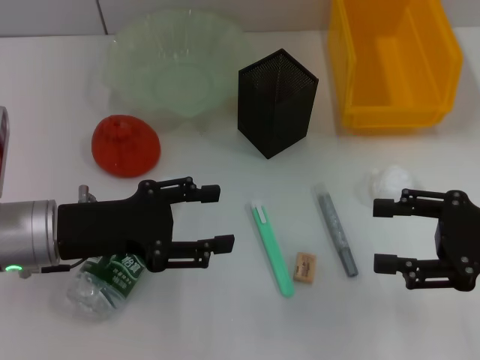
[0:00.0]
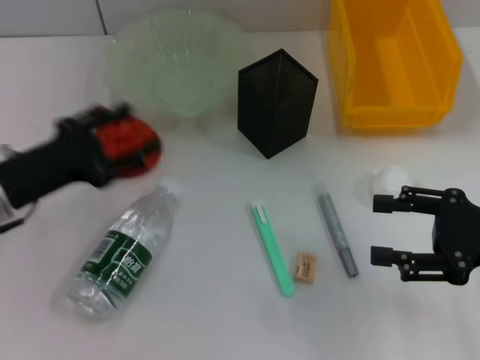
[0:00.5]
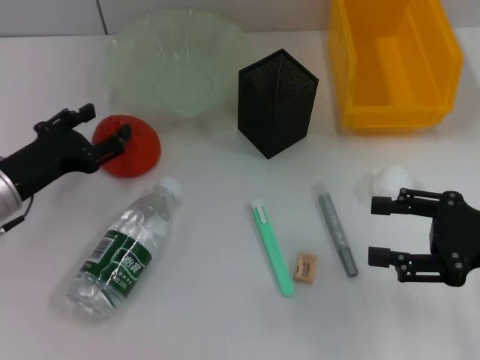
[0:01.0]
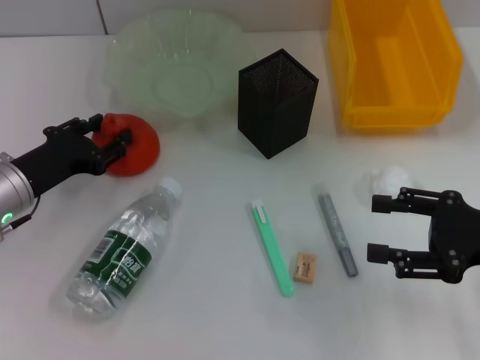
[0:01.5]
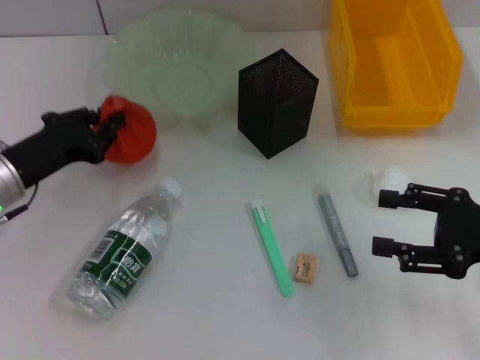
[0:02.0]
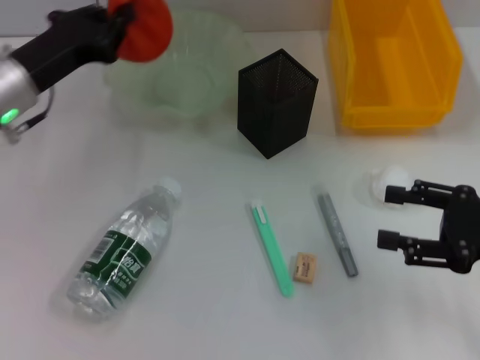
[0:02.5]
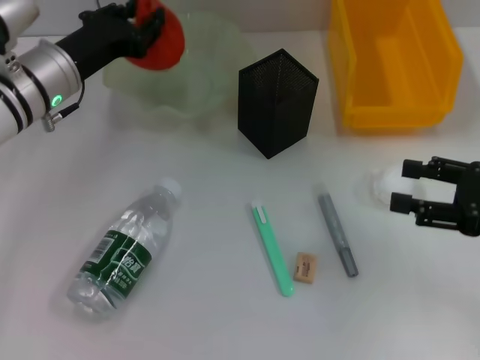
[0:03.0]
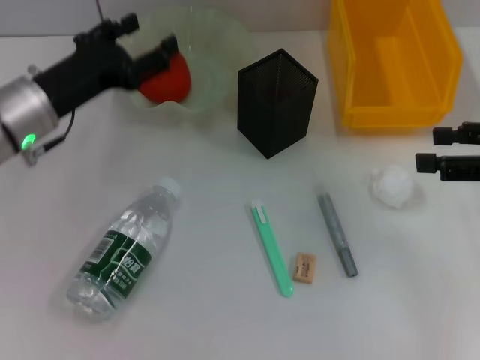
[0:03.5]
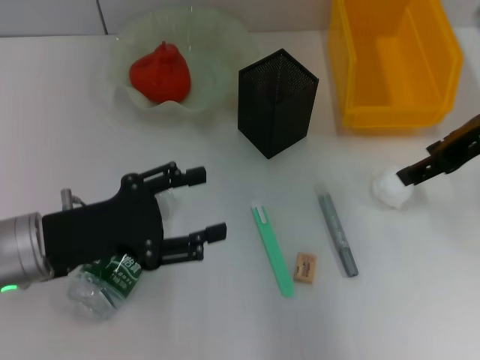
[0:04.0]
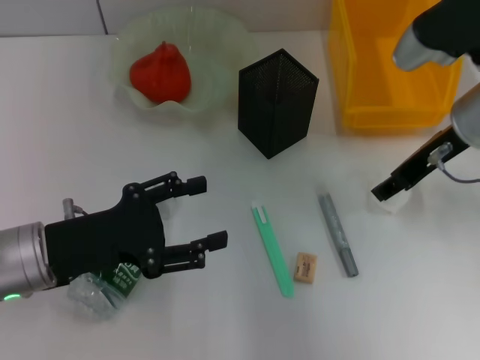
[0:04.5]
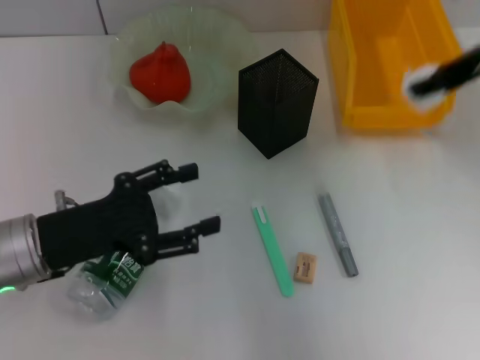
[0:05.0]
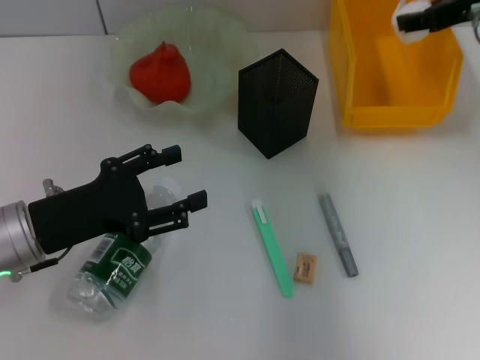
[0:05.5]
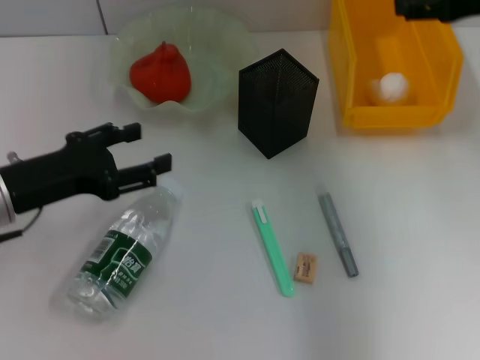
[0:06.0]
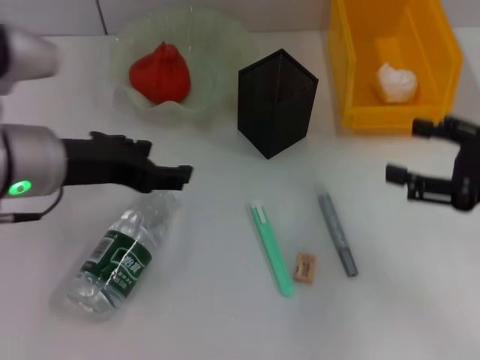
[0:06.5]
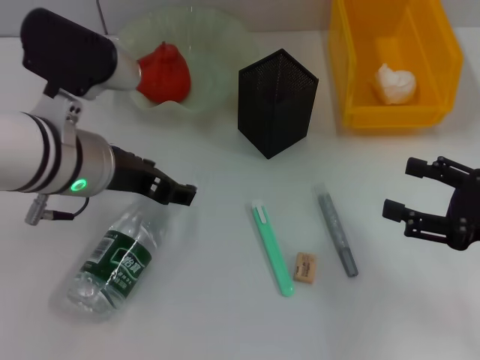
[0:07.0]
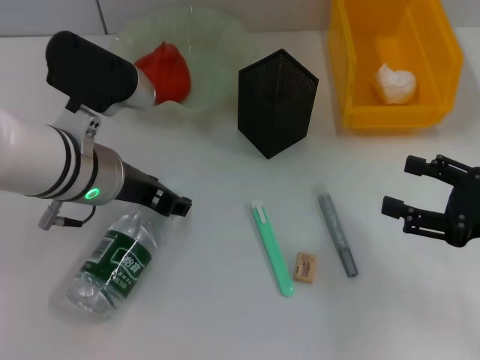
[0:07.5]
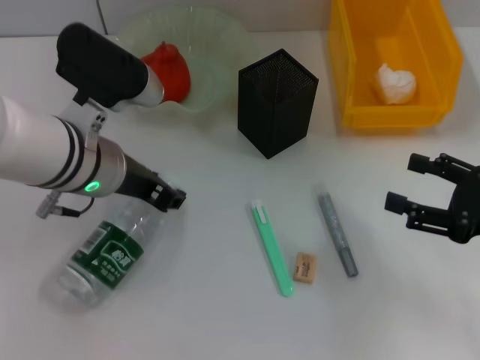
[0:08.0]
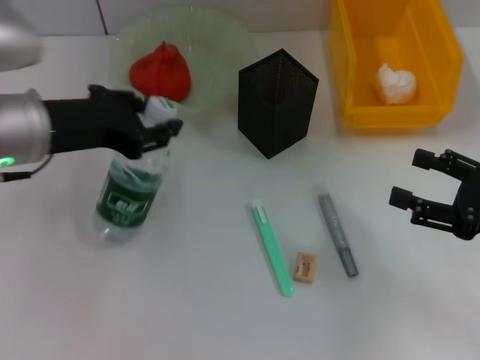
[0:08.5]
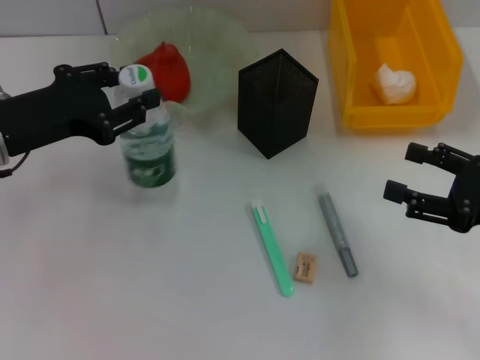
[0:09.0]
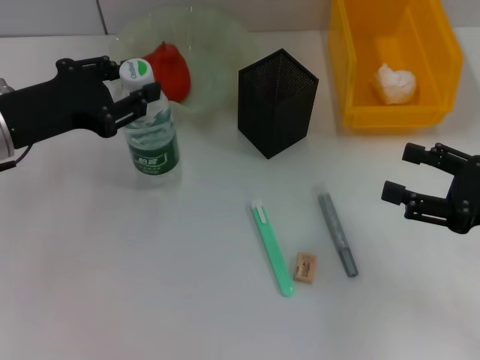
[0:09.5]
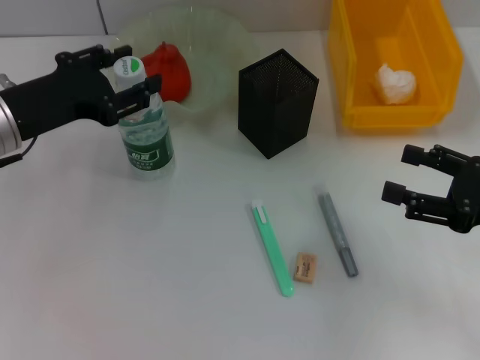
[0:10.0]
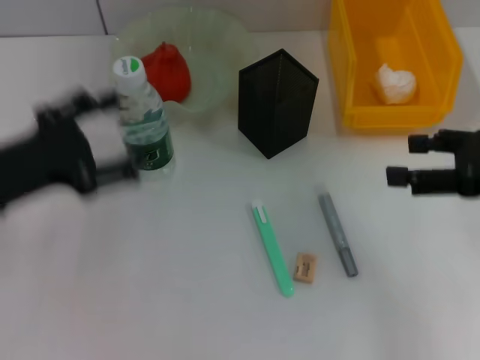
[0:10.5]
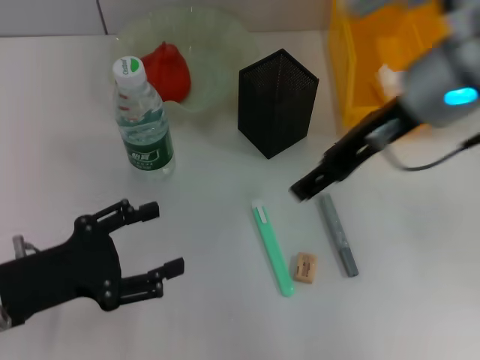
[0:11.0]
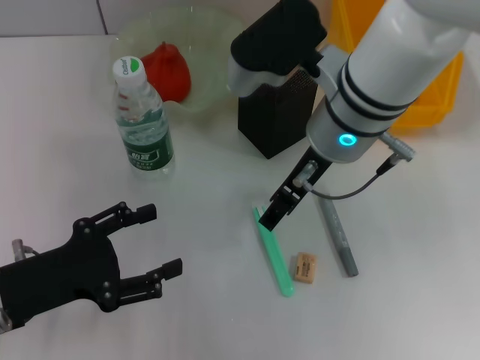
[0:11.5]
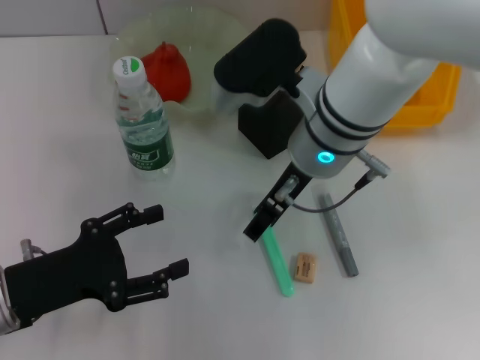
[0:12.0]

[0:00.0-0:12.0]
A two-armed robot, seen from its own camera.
Step, 0:00.0 to 0:01.5: Grab the orange with the left hand.
Step, 0:02.0 to 0:03.0: Place the orange into the fruit bowl with the left hand.
Step, 0:03.5 to 0:04.5: Grab the paper ball with the right hand.
Step, 0:05.0 to 0:05.5: Place the paper ball into the trash can with the right hand.
Step, 0:06.0 to 0:08.0: Grab the water bottle with the left hand.
Step, 0:08.5 to 0:09.5: Place the water bottle on the table with the left hand.
0:00.0 to 0:02.0: The left gripper moves some 5 cm, and closes.
0:02.0 to 0:04.0: The right gripper is displaced upward, forward and to the left by roughly 15 cm; the left gripper heads backward, covering roughly 5 cm, and opens.
0:06.0 to 0:08.0: The left gripper moves to the right, some 10 cm, and closes its fingers. Meanwhile the right gripper moves backward and downward, approximately 20 cm.
0:08.0 to 0:10.0: The left gripper is displaced to the left by approximately 10 cm.
0:10.0 to 0:12.0: The right gripper goes about 25 cm to the left and forward. The left gripper is displaced backward and downward by approximately 15 cm, and opens its fingers.

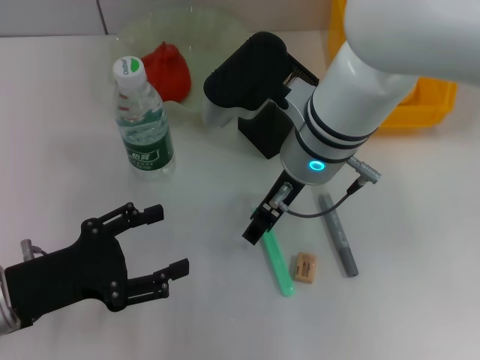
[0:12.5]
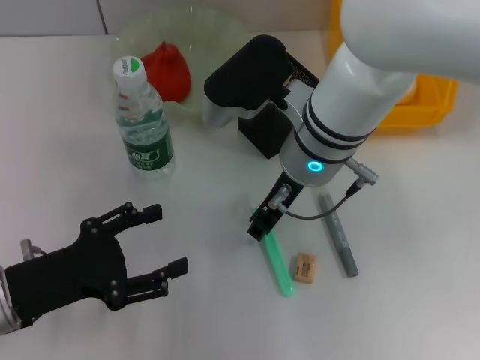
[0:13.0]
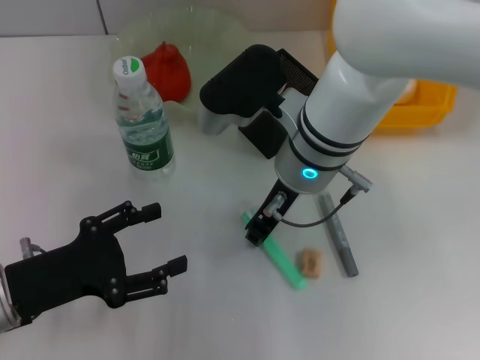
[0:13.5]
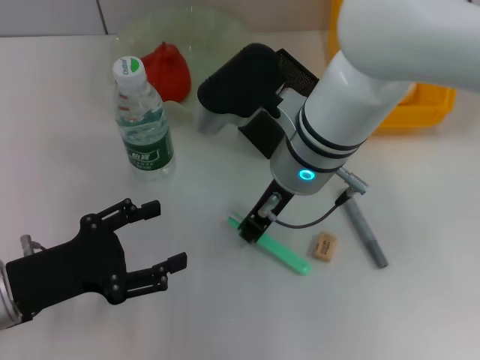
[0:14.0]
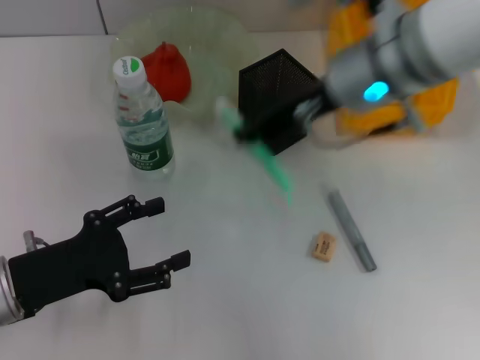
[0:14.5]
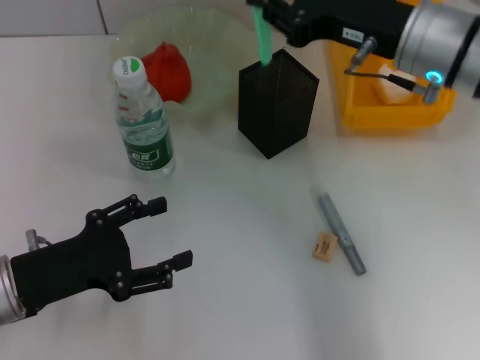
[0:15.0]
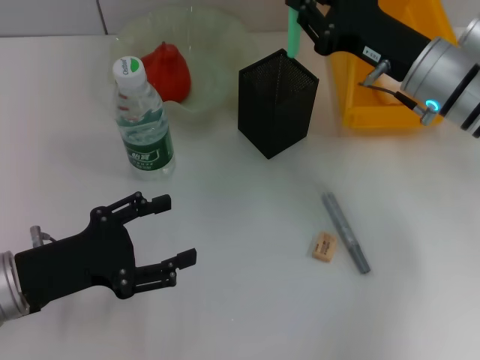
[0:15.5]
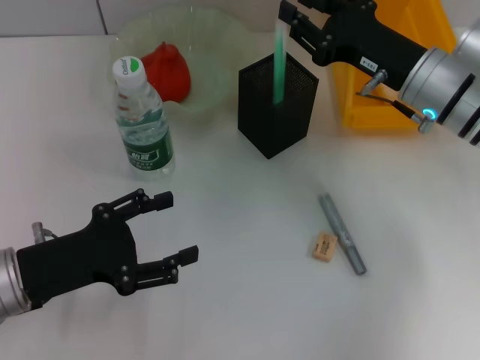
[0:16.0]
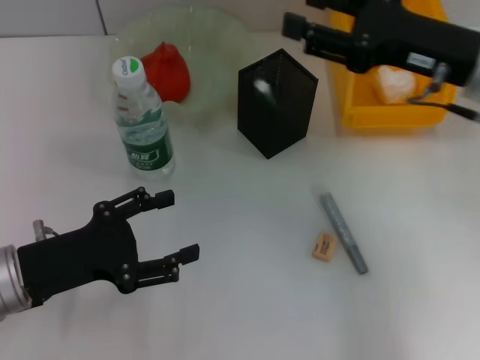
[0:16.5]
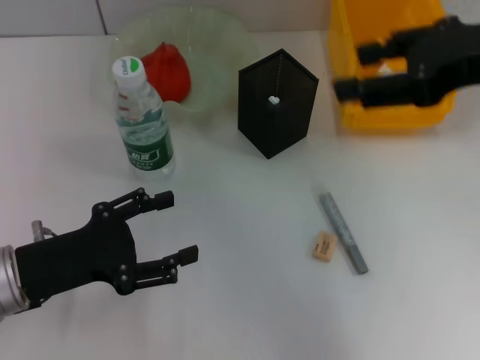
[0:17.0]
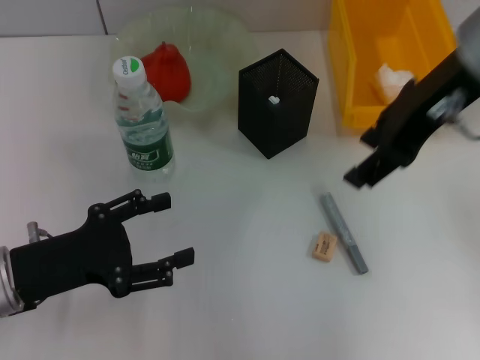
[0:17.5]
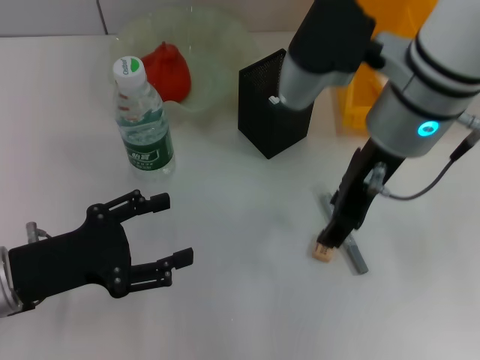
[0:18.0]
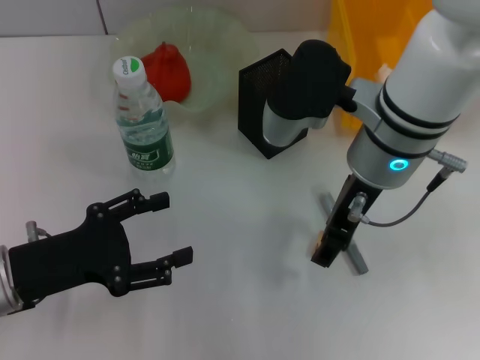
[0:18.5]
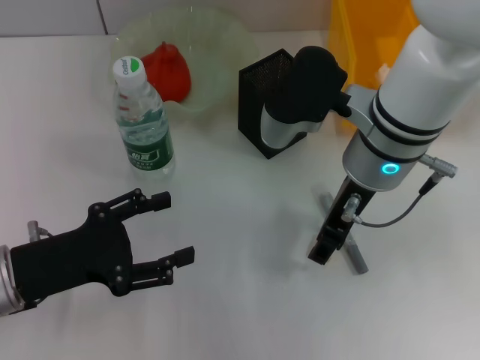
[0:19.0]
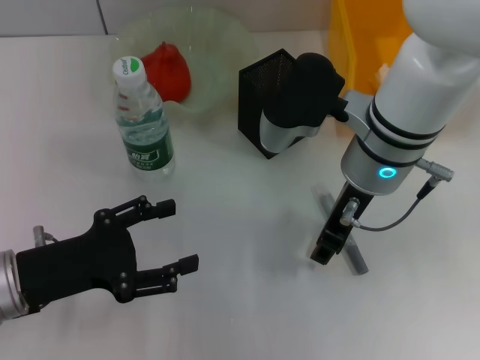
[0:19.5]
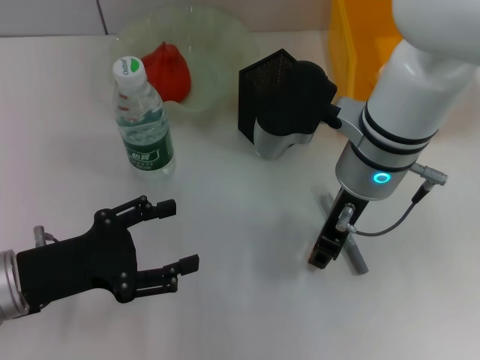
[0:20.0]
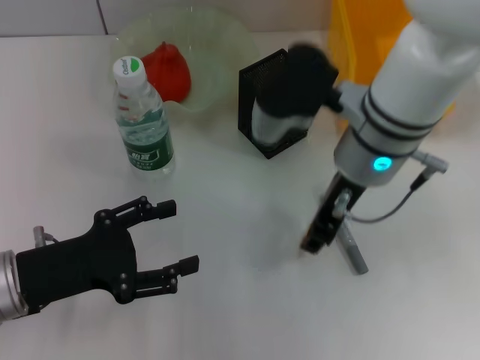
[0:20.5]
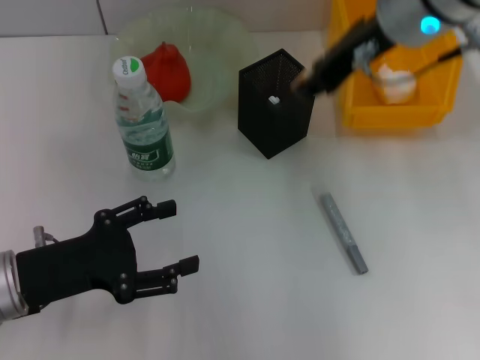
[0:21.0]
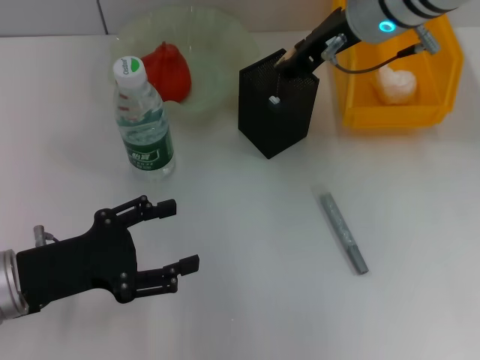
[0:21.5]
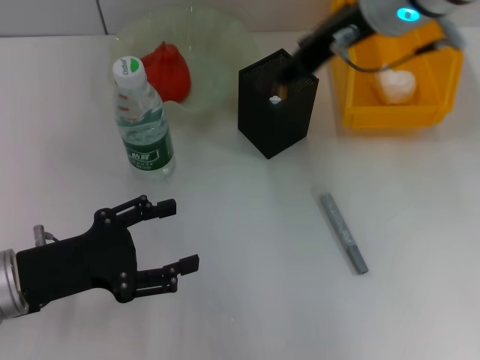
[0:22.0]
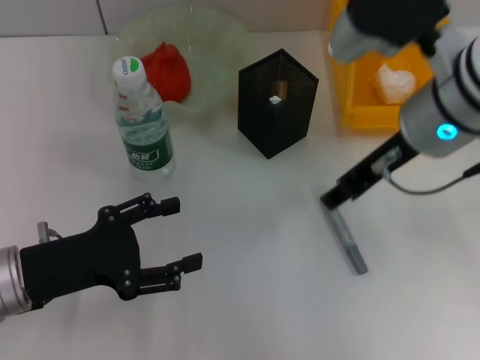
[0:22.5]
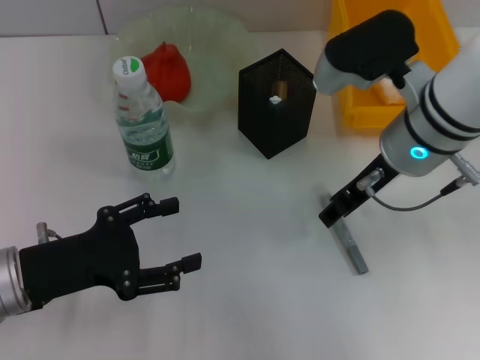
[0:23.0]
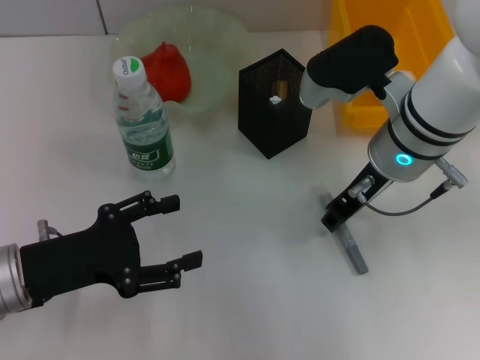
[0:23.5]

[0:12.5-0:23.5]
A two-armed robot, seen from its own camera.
Step, 0:14.0 to 0:16.0: Place the blue utility knife into the pen holder with the right hand.
Step, 0:16.5 to 0:20.0: Grab the eraser with the right hand.
Step, 0:20.5 to 0:21.5: Put the eraser into the pen holder with the right hand.
0:12.5 to 0:14.5: The right gripper heads upward and to the right, covering roughly 10 cm, and closes its fingers.
0:14.5 to 0:16.0: The right gripper moves downward and to the right, roughly 15 cm.
0:16.0 to 0:18.0: The right gripper is displaced upward and to the left by roughly 10 cm, and opens up.
0:18.0 to 0:20.0: The right gripper is displaced downward by about 5 cm.
0:20.0 to 0:21.5: The right gripper moves forward and upward, approximately 10 cm.
0:21.5 to 0:23.5: The right gripper is displaced backward and downward by roughly 10 cm.

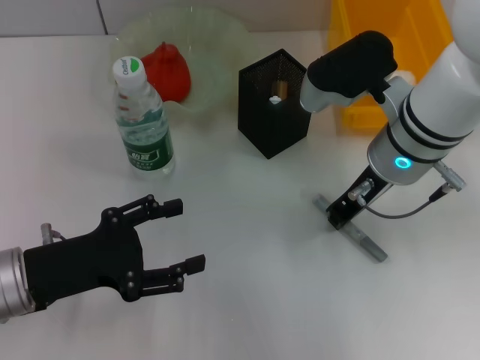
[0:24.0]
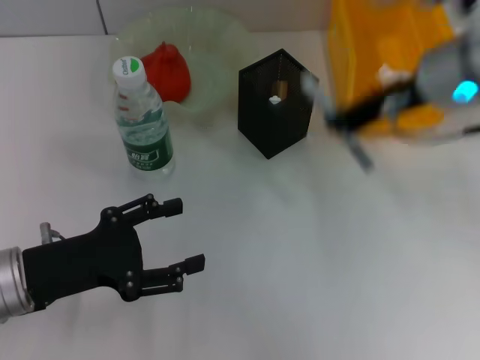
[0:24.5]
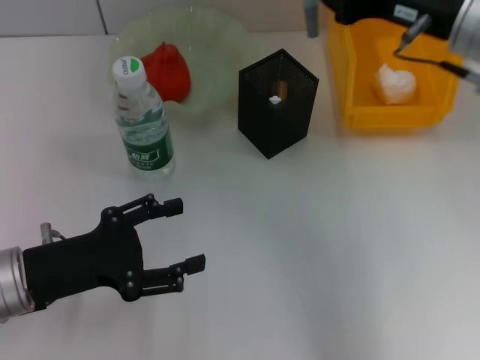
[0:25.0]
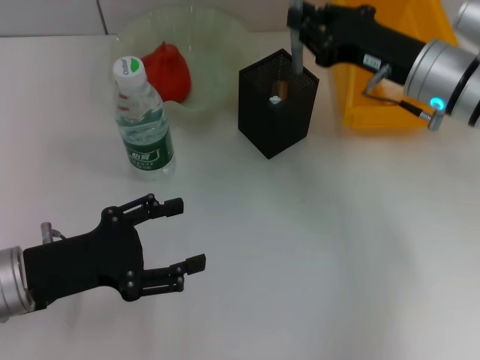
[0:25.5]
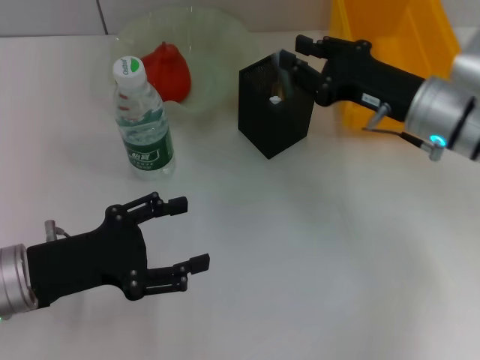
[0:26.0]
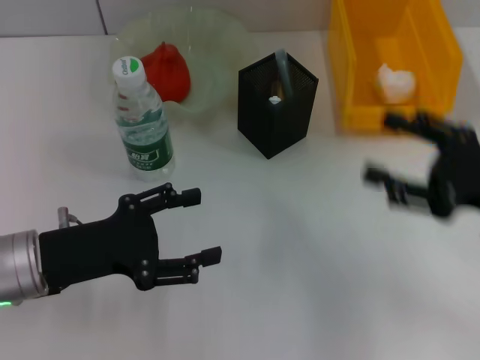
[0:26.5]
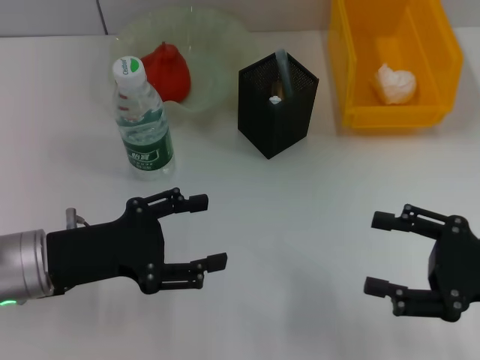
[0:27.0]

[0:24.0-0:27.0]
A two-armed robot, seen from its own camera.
Step, 0:24.0 to 0:26.0: Place the gray glue into the pen holder with the right hand.
0:24.0 to 0:25.5: The right gripper goes about 5 cm to the right, and goes upward and returns, some 10 cm each way.
0:25.5 to 0:27.0: The right gripper shifts approximately 20 cm backward and to the right, and opens.
